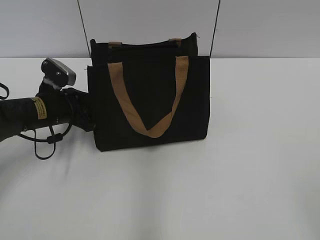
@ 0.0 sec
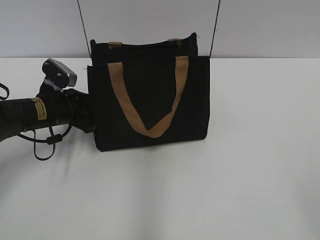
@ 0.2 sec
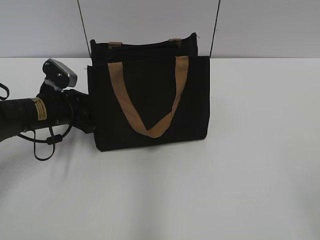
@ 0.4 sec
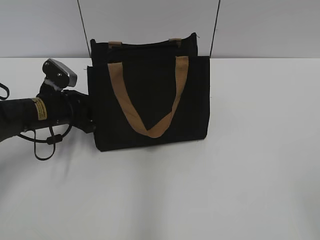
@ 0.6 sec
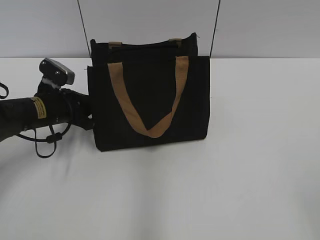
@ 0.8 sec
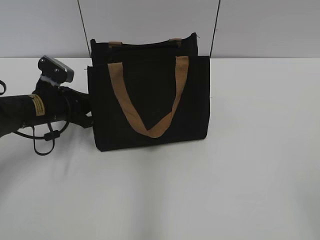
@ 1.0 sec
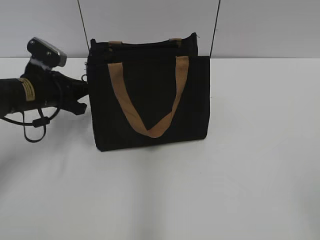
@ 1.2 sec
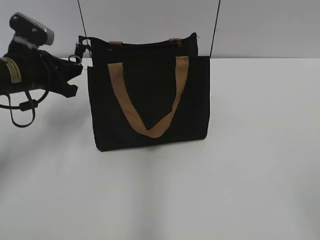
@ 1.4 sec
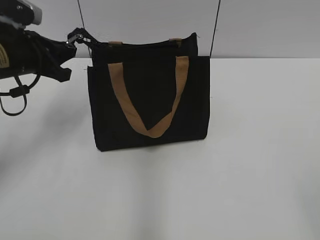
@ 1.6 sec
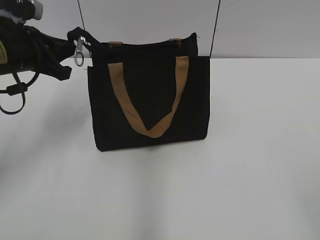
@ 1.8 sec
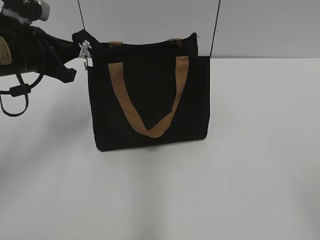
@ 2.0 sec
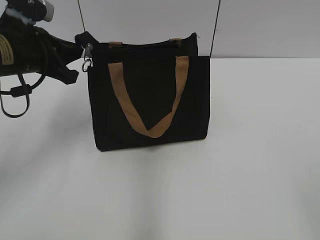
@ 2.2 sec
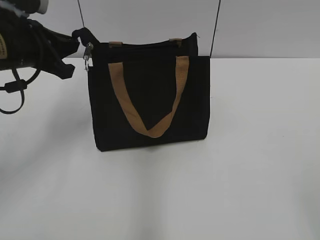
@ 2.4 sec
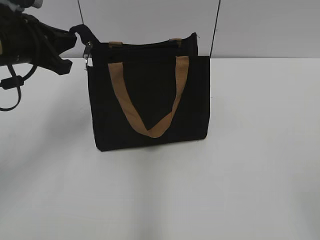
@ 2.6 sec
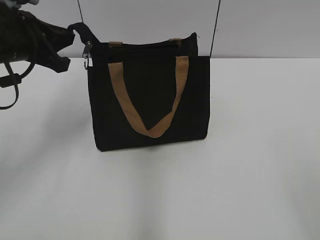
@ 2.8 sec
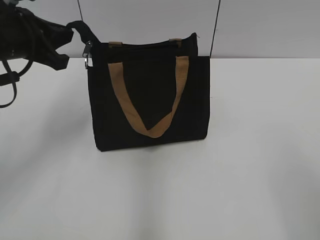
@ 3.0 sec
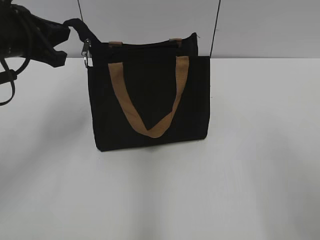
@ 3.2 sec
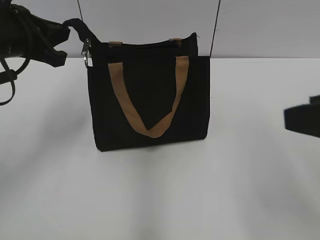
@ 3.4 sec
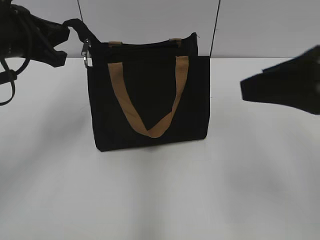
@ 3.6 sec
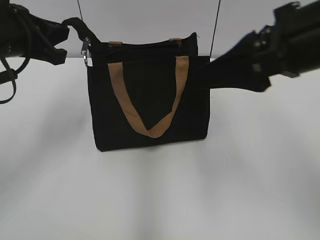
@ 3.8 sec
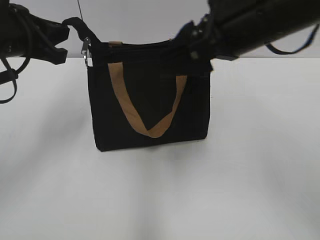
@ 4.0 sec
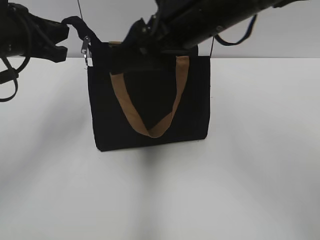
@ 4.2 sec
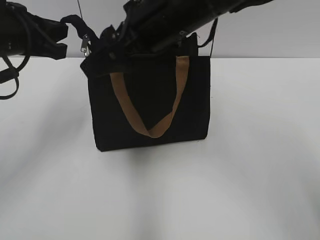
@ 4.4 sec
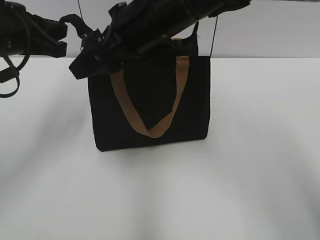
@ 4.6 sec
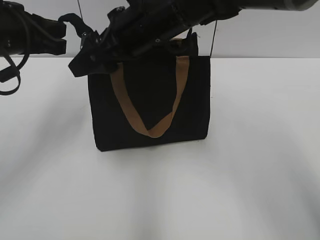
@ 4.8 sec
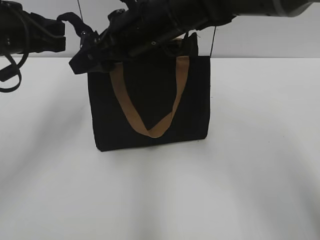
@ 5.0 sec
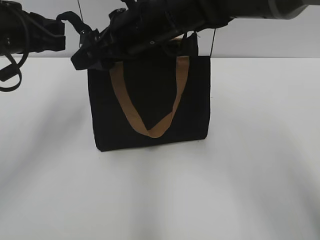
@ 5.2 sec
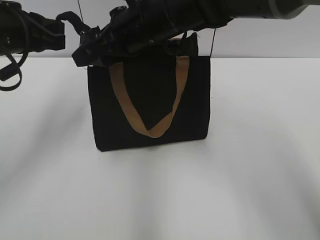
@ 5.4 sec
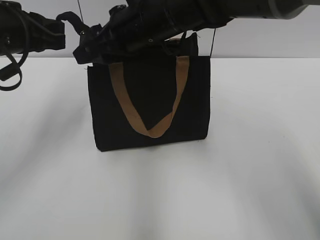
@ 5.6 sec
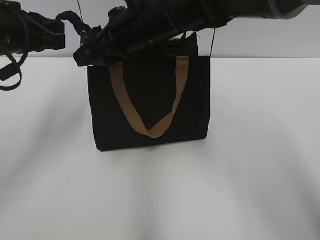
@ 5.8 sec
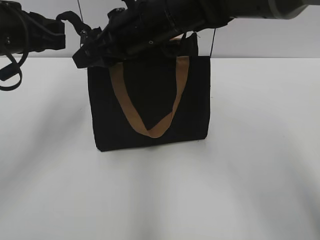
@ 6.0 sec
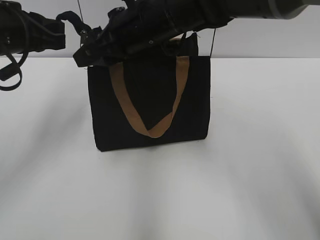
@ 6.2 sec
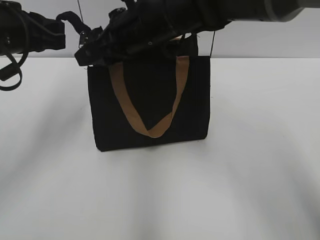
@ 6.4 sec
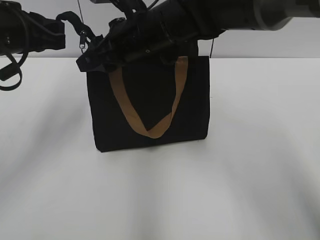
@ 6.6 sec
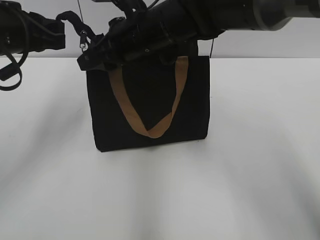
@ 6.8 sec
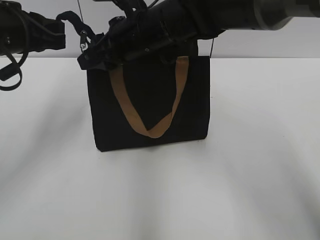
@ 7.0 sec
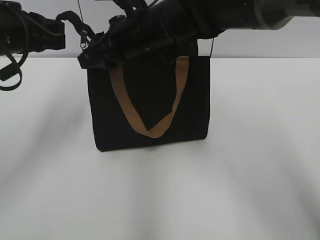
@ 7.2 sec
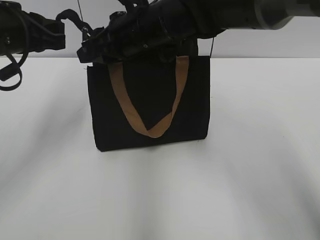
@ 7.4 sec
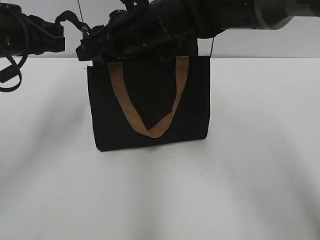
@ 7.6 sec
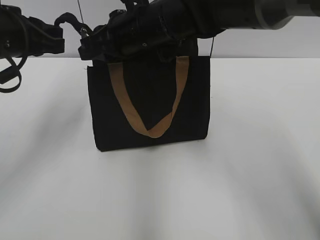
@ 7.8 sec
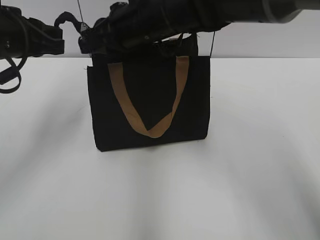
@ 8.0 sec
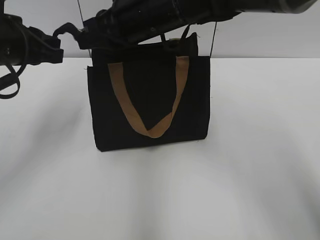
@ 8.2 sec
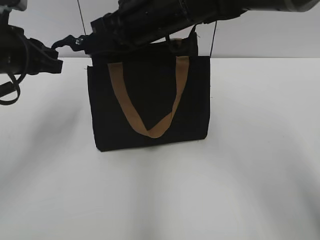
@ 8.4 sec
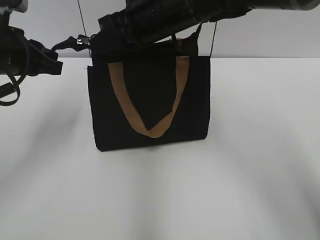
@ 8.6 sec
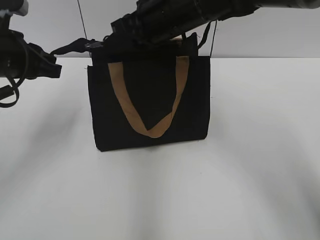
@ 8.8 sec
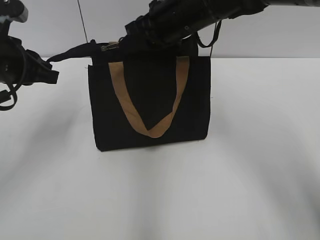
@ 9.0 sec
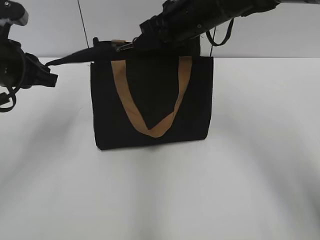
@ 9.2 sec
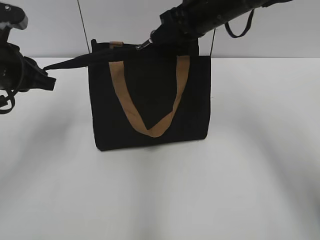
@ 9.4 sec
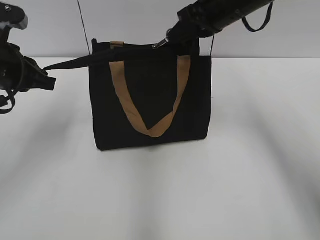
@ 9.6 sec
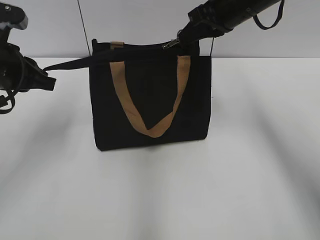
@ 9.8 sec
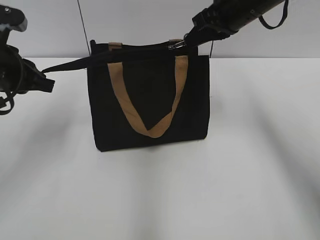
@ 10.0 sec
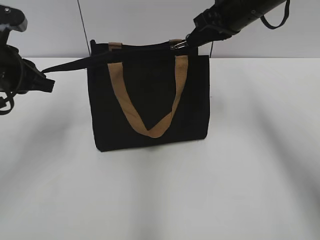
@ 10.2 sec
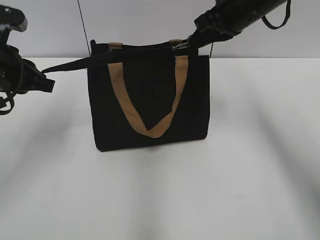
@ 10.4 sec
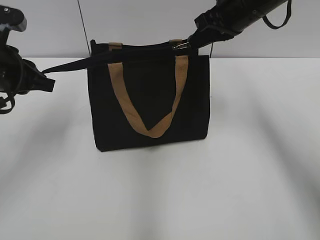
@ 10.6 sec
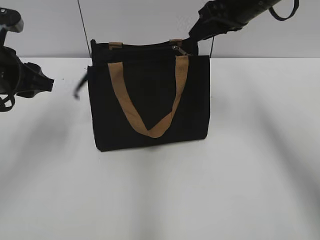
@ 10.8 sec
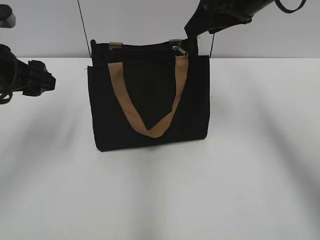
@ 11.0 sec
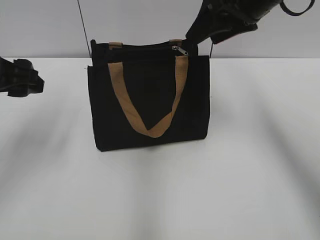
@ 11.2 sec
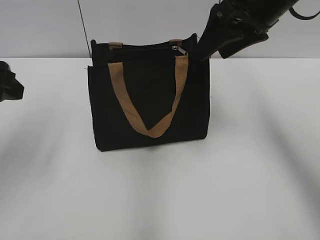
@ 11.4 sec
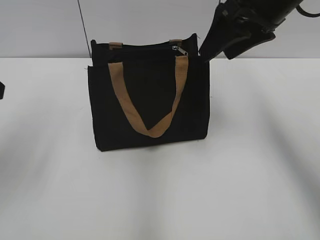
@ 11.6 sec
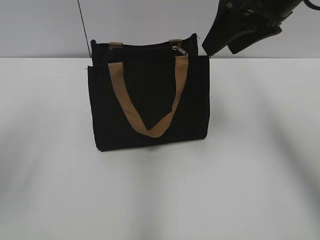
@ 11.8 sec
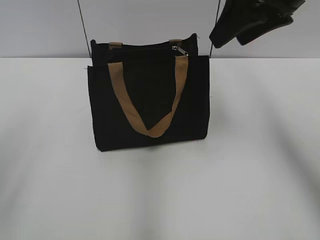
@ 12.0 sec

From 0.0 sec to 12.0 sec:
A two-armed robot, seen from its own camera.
Step, from 0.0 sec to 10.6 sec: Zip up the bag with your right hand.
From 0.0 sec to 1.6 sec: The left gripper is displaced upward by about 10 cm, and closes up.
From 1.6 sec to 3.0 sec: The left gripper heads upward, covering roughly 5 cm.
From 3.0 sec to 4.4 sec: The right gripper heads forward and to the left, covering some 35 cm.
From 4.4 sec to 6.0 sec: The right gripper changes place by roughly 5 cm.
From 6.0 sec to 7.6 sec: The grippers move only a little.
From 7.6 sec to 9.0 sec: The right gripper shifts approximately 5 cm to the right, and closes its fingers.
From 9.0 sec to 10.4 sec: The right gripper moves to the right, about 10 cm.
From 10.4 sec to 12.0 sec: The left gripper shifts about 15 cm backward and upward, and opens its fingers. The right gripper moves backward and upward, roughly 10 cm, and opens.

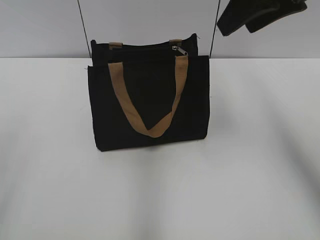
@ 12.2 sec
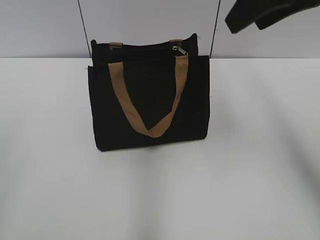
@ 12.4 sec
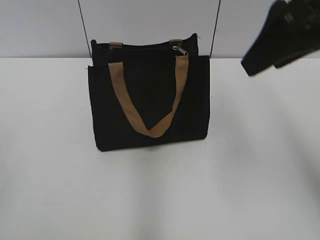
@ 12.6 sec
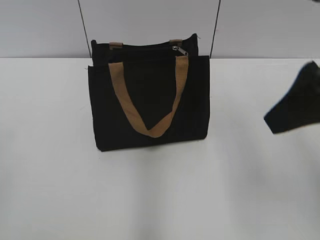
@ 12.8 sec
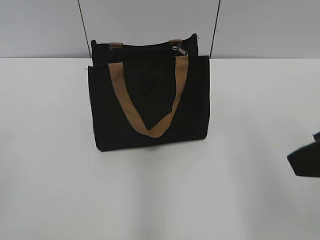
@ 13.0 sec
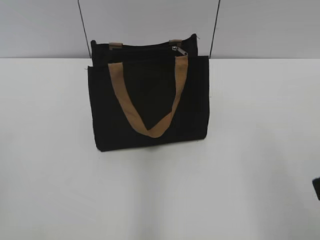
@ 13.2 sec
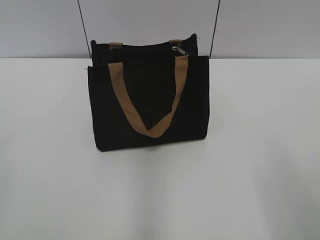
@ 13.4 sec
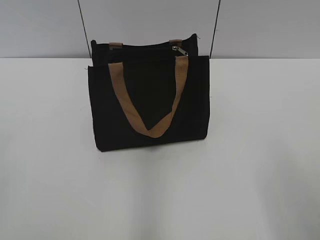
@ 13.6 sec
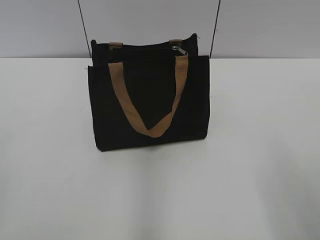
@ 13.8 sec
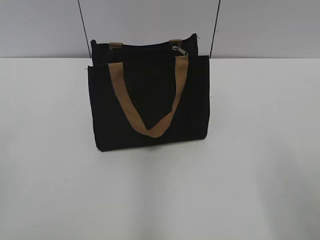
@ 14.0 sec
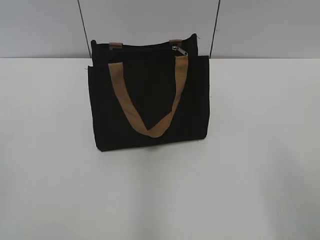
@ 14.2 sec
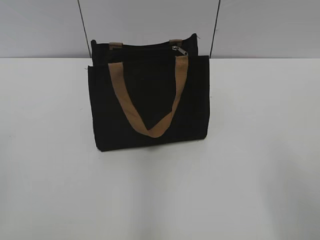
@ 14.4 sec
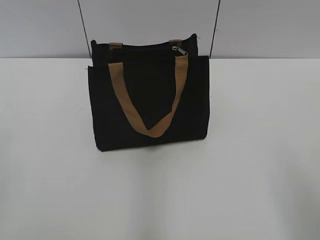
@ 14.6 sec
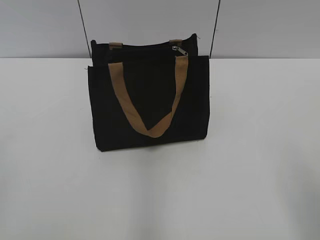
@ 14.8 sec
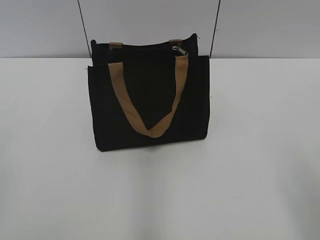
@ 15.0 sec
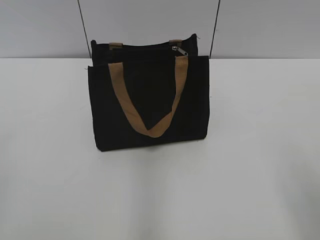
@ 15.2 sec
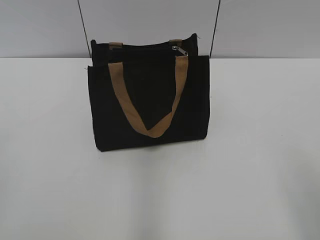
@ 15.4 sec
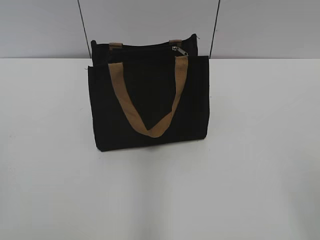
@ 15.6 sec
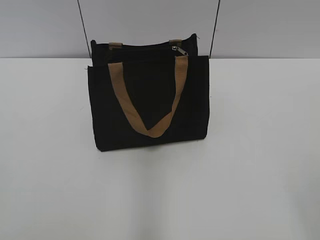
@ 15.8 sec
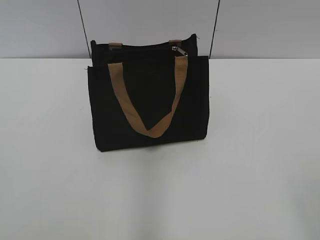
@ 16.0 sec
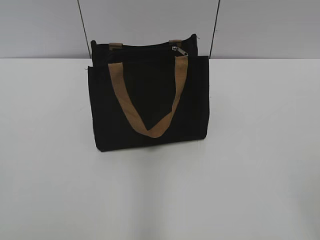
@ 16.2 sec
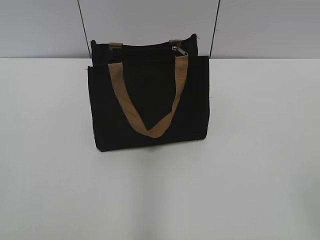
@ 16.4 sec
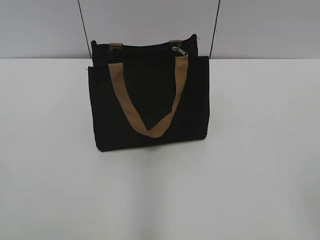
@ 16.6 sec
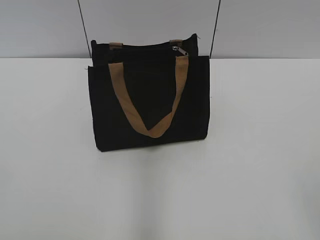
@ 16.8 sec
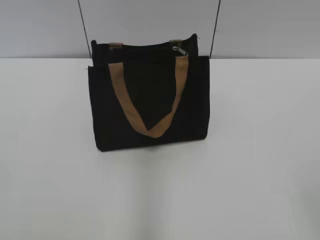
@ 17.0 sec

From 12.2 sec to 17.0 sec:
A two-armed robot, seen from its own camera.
From 12.2 sec to 13.8 sec: The right gripper heads backward and downward, covering approximately 25 cm.
